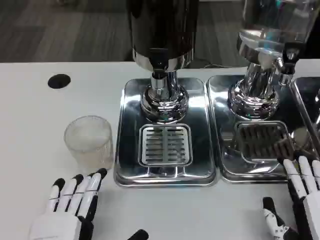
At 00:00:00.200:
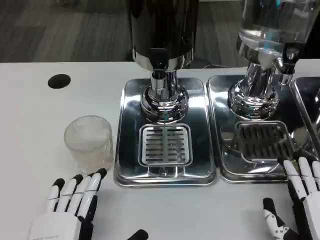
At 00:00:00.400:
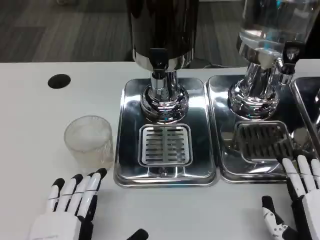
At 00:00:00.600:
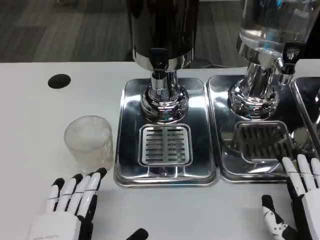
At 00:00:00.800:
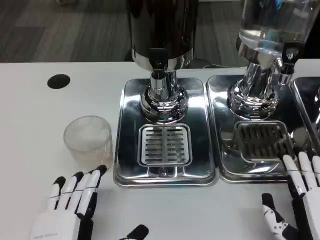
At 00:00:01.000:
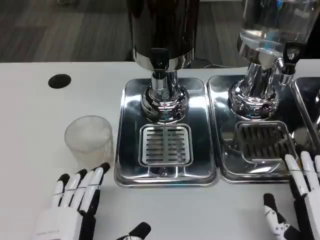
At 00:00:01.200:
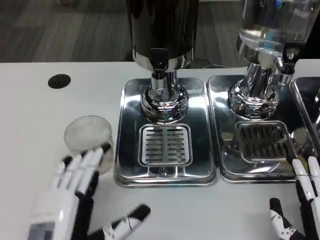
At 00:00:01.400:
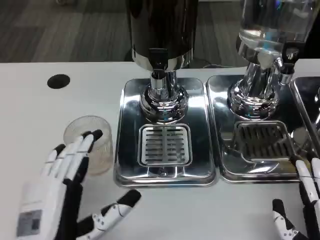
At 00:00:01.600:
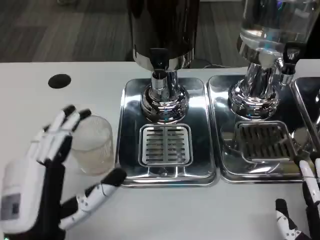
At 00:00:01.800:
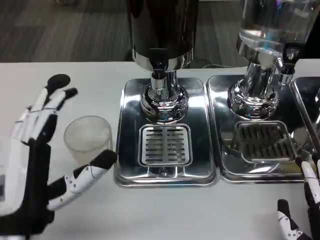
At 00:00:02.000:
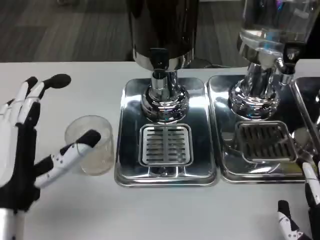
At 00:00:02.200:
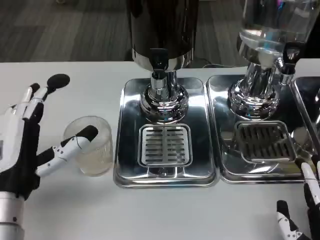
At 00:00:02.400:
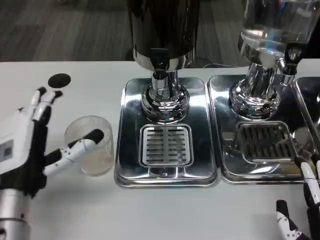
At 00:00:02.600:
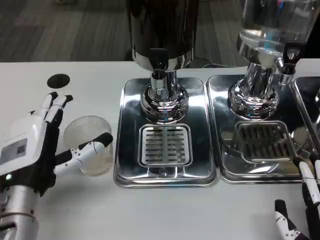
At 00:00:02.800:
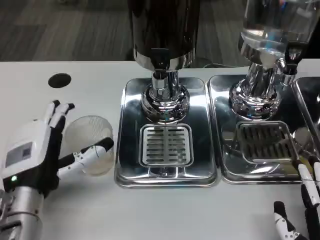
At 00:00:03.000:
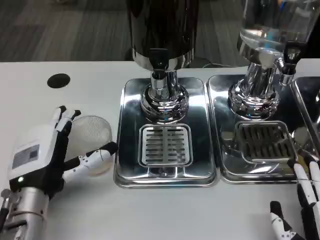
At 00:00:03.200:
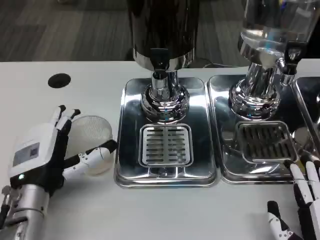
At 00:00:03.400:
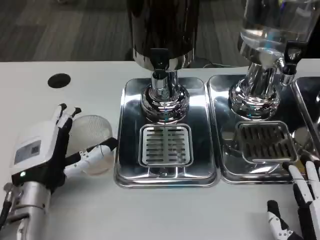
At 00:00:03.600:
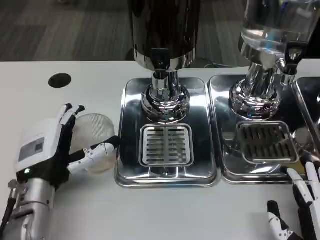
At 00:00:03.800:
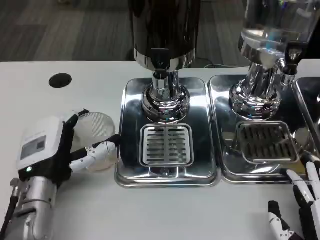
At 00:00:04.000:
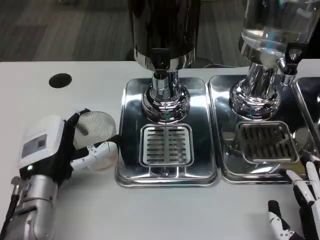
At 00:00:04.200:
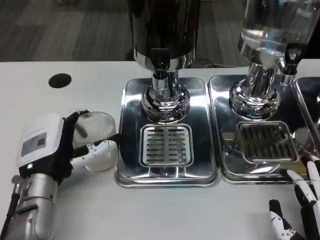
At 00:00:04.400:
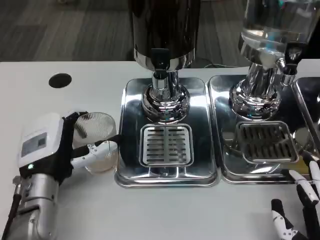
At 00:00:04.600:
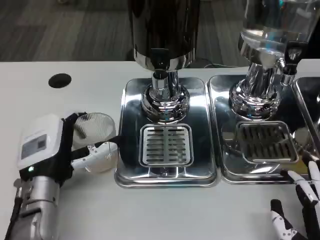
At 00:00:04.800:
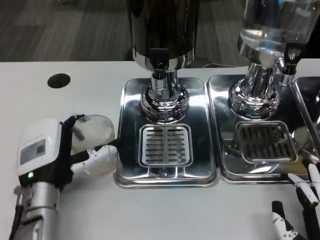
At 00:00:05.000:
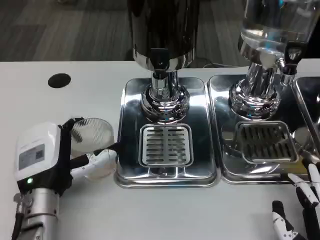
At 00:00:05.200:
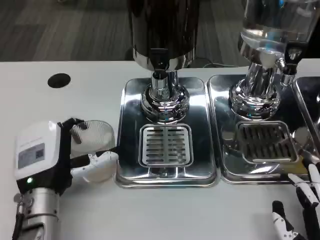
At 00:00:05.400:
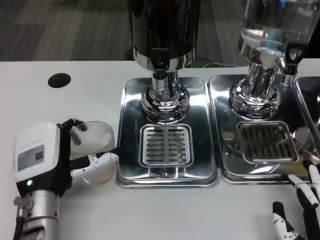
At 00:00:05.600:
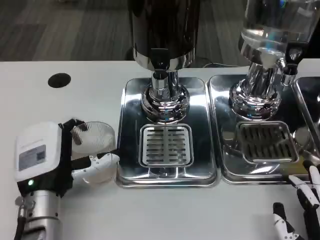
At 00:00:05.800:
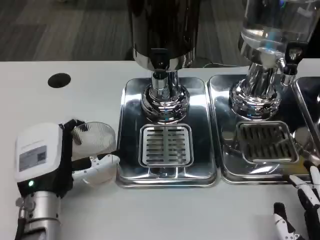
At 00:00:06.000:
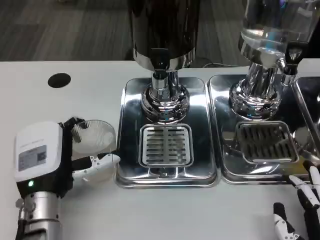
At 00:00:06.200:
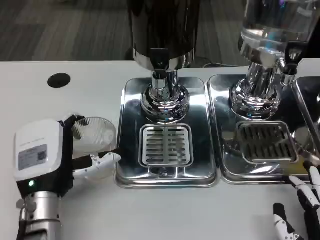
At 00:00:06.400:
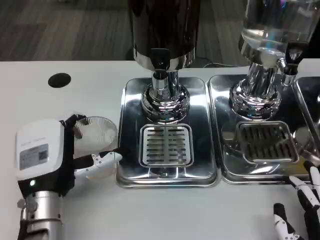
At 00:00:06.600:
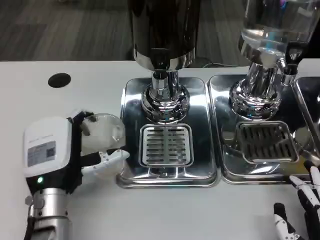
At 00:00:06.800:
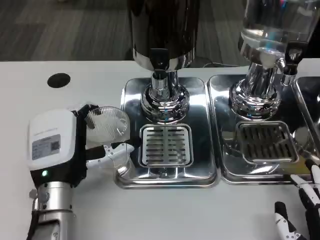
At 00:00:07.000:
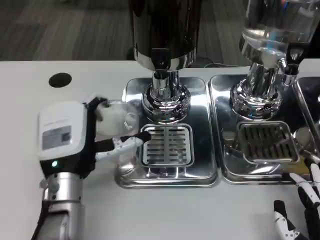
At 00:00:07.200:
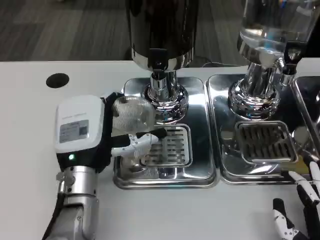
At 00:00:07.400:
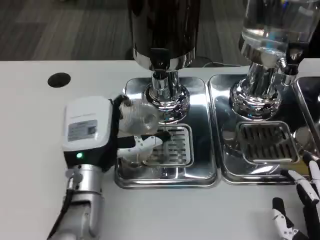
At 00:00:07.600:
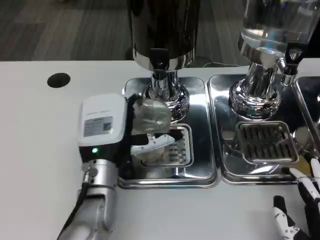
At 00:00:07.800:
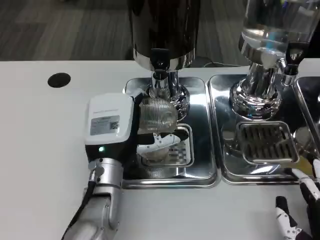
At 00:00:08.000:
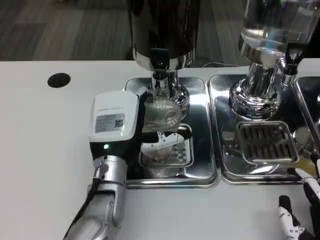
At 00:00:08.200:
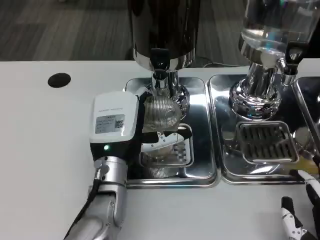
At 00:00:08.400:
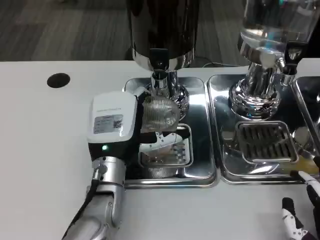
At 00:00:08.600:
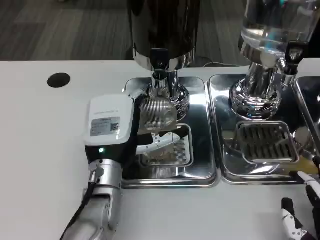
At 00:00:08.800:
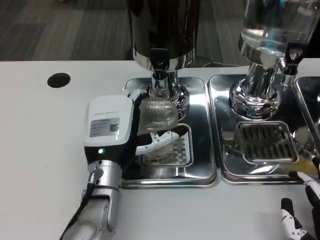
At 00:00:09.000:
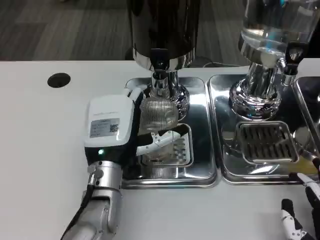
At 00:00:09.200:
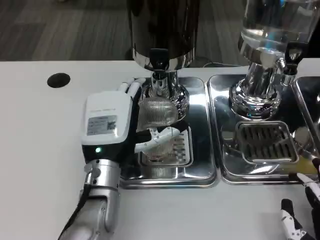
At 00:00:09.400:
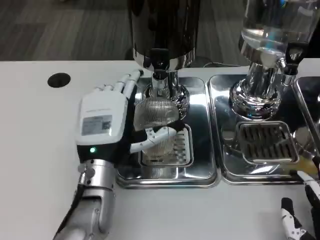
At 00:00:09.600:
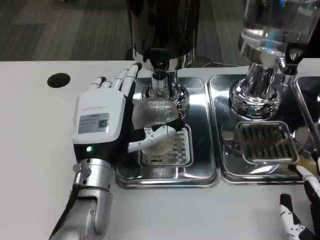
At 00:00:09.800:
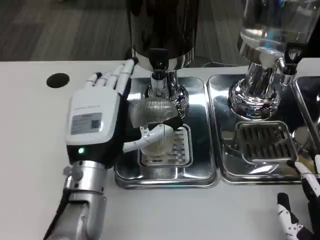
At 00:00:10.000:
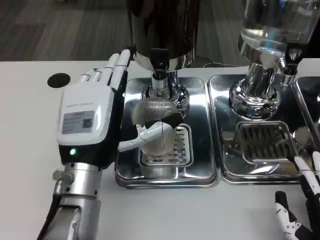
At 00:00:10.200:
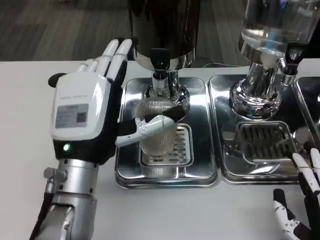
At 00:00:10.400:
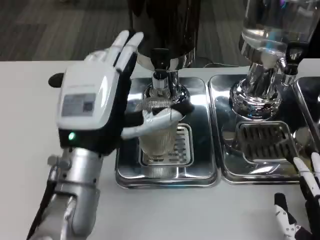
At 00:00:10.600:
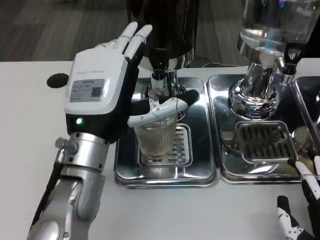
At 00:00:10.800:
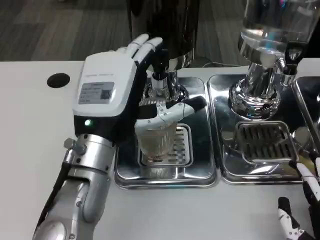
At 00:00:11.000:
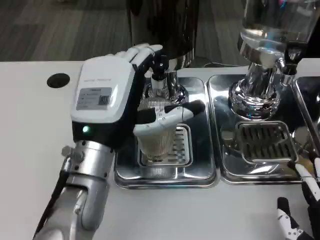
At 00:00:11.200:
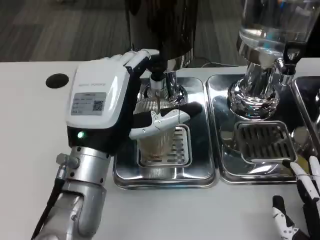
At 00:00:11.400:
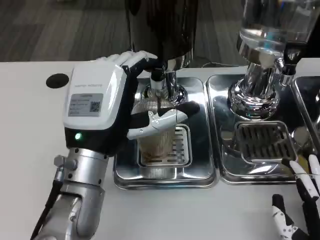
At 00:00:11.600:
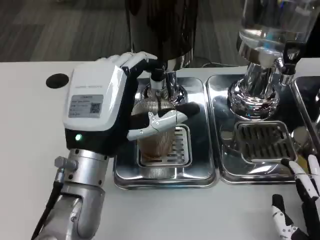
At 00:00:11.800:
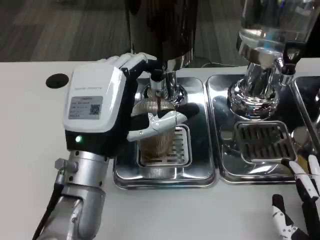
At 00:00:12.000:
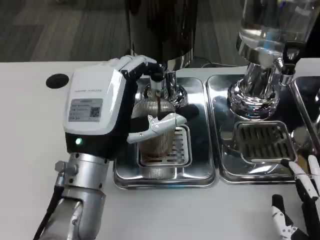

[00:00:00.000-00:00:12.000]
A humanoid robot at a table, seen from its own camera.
Task of the whole recording: Grasp the cup under the faucet to collect the drink, then remove the cup.
00:00:00.000 to 00:00:01.600: The left hand heads forward, covering roughly 5 cm.
00:00:01.600 to 00:00:03.000: The left hand is displaced forward by roughly 10 cm.
00:00:03.000 to 00:00:06.000: The hands make only small movements.
00:00:06.000 to 00:00:07.600: The left hand moves to the right, about 5 cm.
00:00:07.600 to 00:00:09.000: Both hands stay about where they are.
00:00:09.000 to 00:00:10.400: The left hand is displaced upward by roughly 10 cm.

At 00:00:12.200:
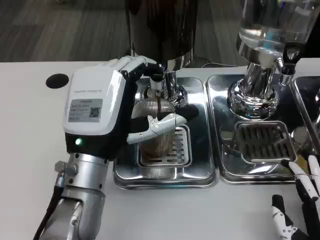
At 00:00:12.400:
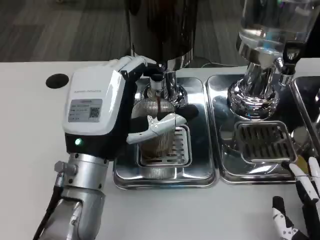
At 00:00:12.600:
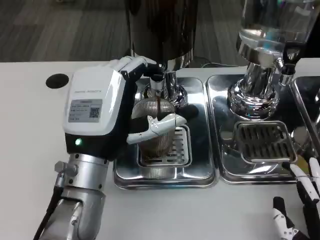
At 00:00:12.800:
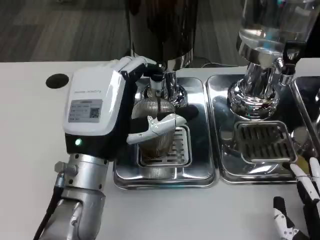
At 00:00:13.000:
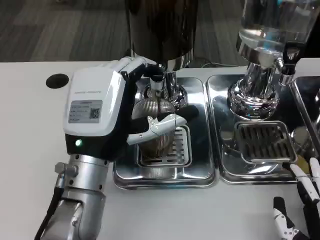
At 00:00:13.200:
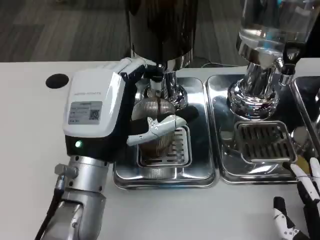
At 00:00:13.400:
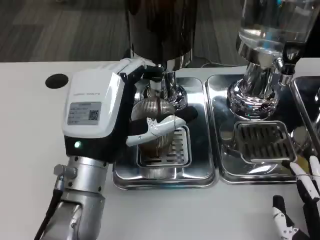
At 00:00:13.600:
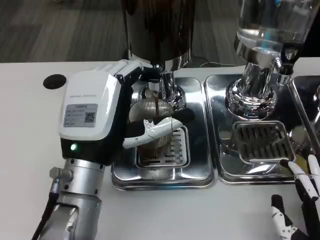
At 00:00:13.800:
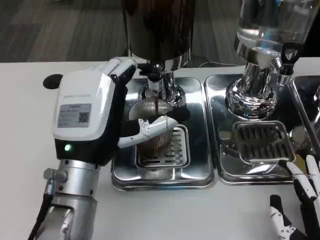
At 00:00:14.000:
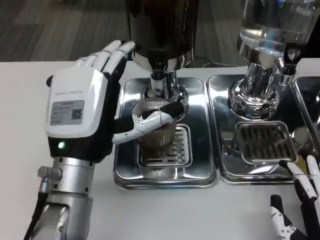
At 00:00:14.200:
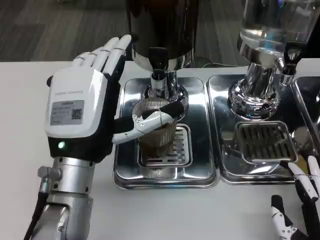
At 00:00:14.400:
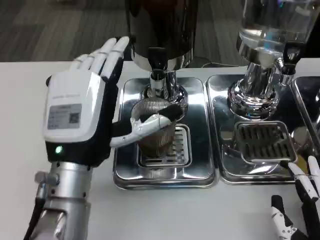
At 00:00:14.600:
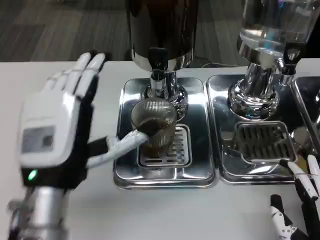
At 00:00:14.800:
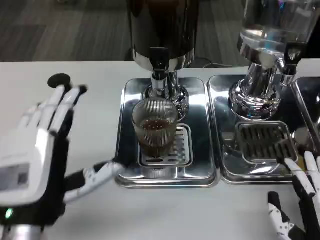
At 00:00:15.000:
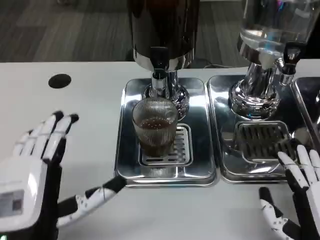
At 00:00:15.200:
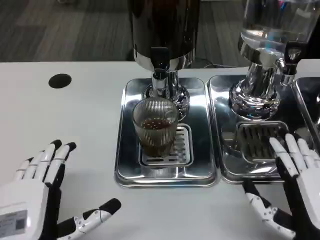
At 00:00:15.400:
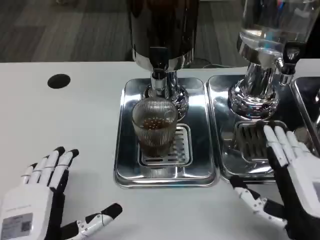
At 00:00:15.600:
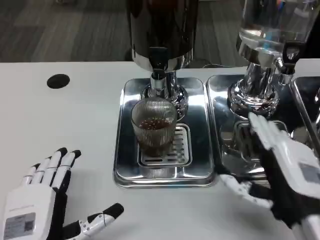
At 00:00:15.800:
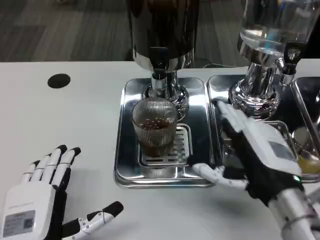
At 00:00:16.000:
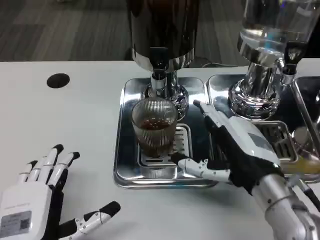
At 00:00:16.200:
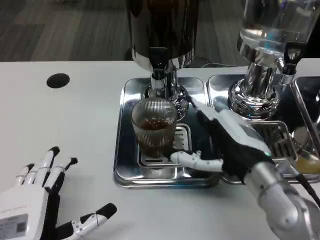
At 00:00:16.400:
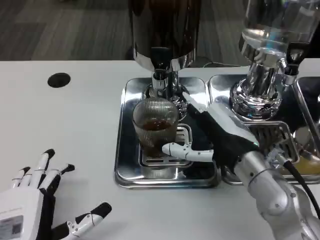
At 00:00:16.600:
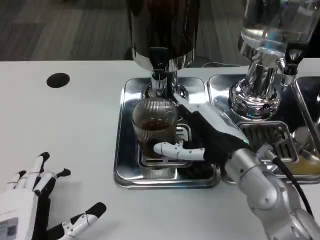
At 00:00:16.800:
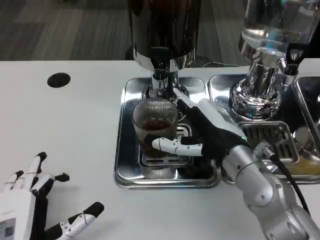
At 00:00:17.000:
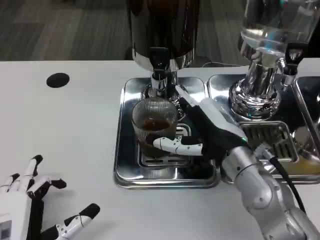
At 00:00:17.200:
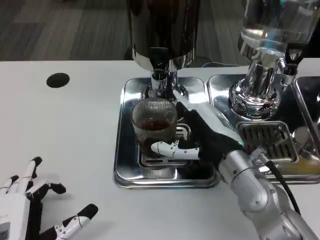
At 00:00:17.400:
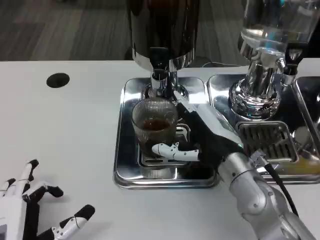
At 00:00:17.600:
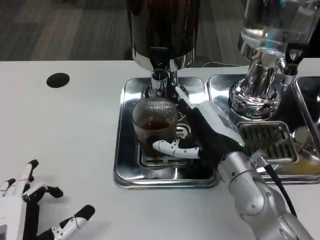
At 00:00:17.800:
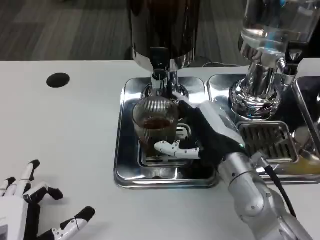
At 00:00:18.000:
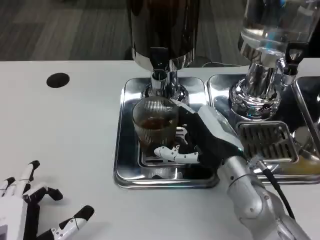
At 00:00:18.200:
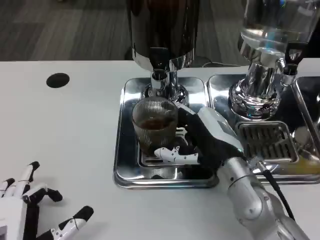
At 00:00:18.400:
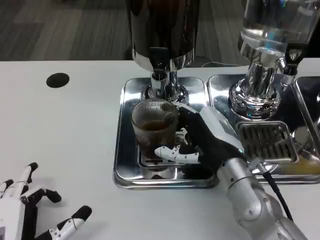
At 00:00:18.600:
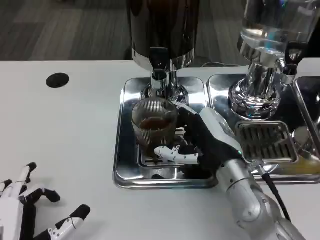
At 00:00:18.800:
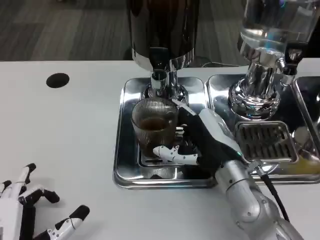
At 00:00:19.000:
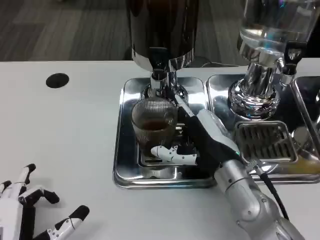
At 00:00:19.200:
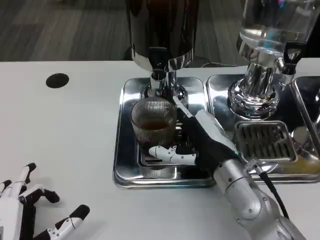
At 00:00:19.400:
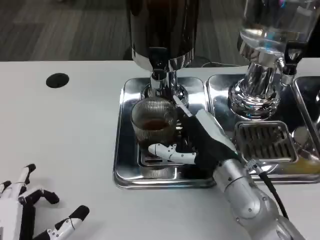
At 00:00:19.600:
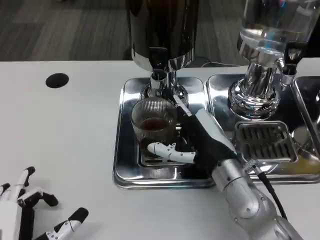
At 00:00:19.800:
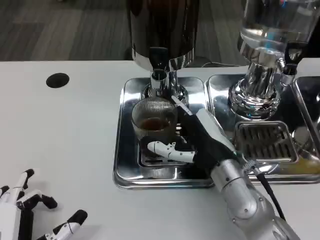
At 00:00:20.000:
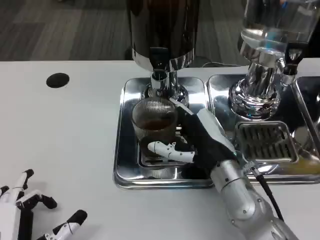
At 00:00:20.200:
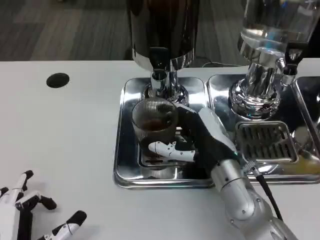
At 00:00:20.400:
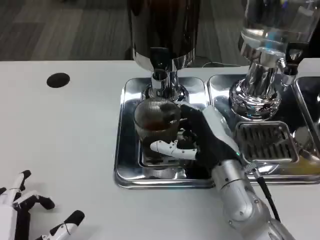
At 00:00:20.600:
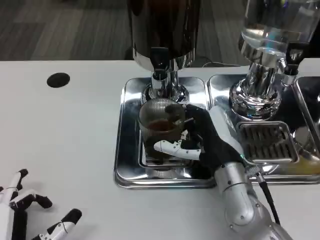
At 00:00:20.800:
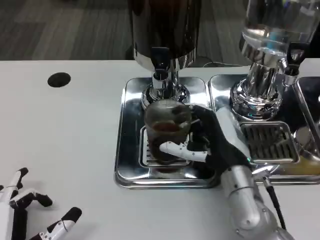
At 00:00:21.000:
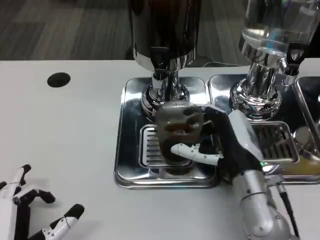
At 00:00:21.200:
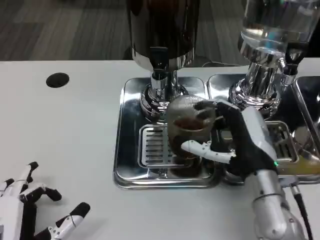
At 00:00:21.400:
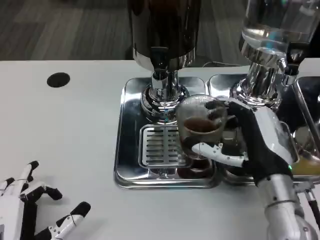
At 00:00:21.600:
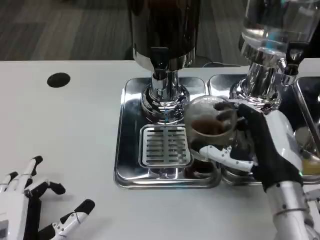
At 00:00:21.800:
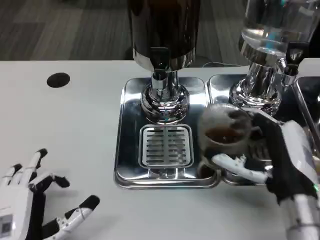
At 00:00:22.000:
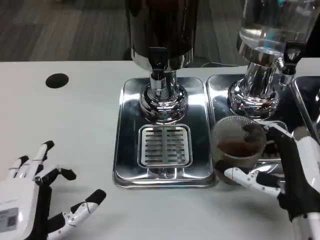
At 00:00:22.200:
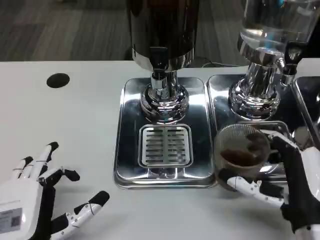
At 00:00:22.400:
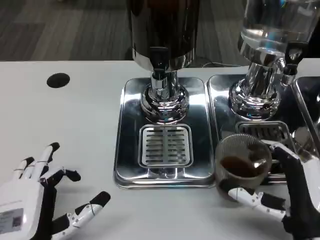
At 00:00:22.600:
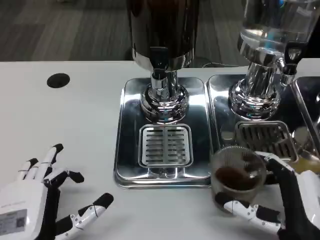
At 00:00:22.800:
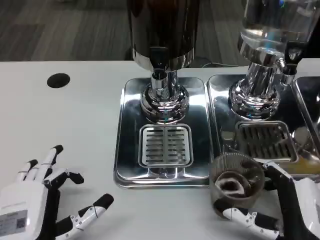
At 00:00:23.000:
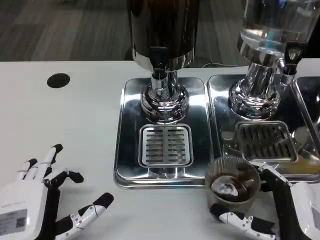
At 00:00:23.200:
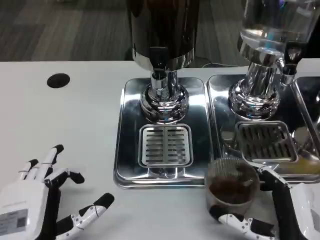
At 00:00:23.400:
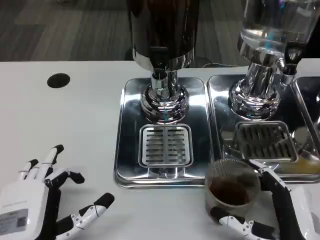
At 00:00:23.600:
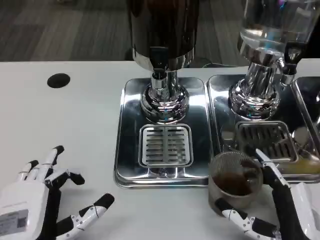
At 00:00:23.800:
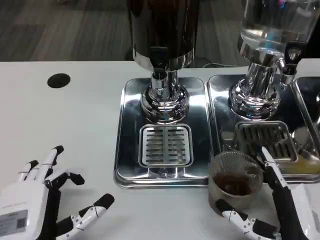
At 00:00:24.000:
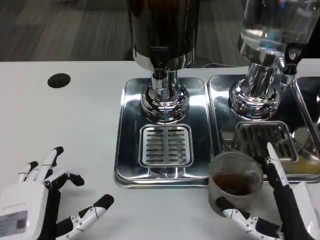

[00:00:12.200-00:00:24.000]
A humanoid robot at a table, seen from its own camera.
Task of the whole recording: Grasp the cup under the faucet to collect the drink, then remove the cup.
00:00:12.200 to 00:00:13.600: The two hands keep their place.
00:00:13.600 to 00:00:15.200: The left hand heads backward, downward and to the left, covering about 15 cm.
00:00:15.200 to 00:00:16.600: The right hand shifts roughly 15 cm forward and to the left.
00:00:16.600 to 00:00:19.600: The hands make only small movements.
00:00:21.000 to 00:00:22.600: The right hand moves backward, about 10 cm.
00:00:22.600 to 00:00:24.000: There are only small adjustments of the hands.
